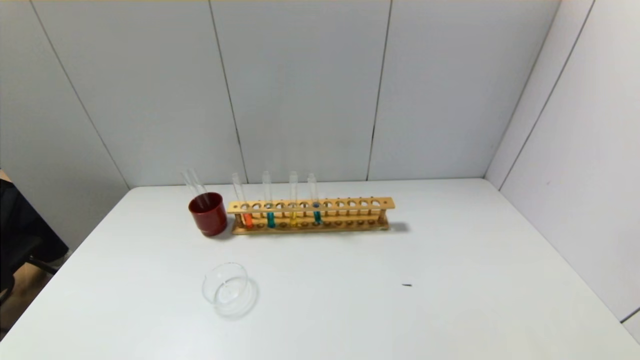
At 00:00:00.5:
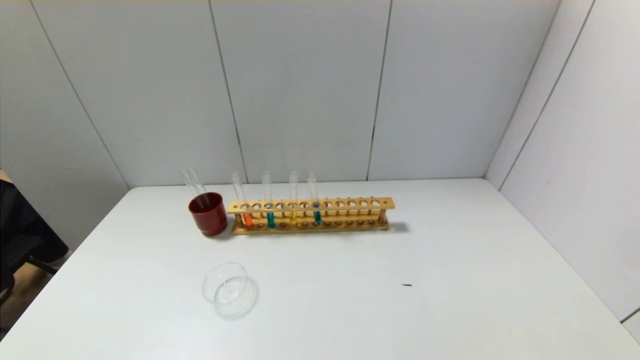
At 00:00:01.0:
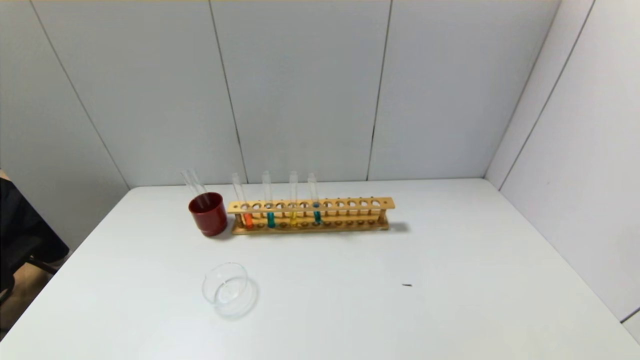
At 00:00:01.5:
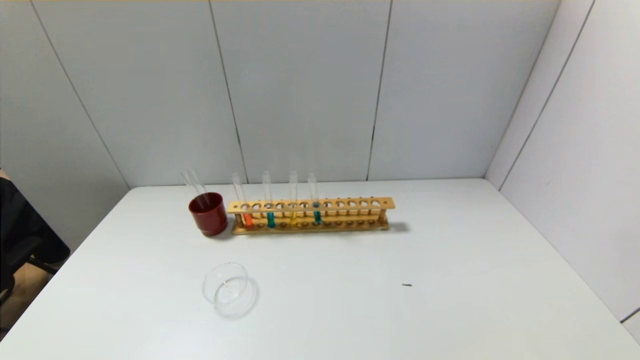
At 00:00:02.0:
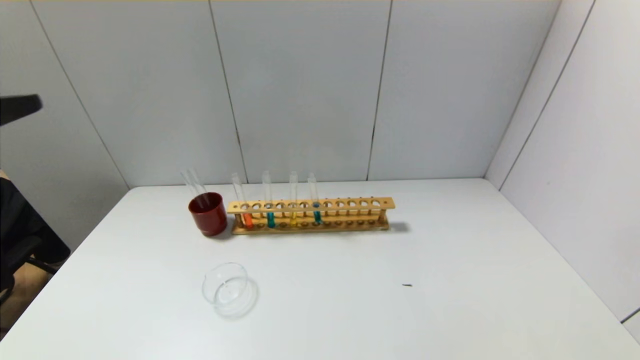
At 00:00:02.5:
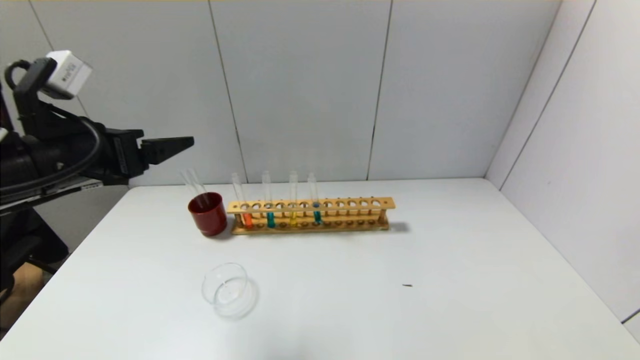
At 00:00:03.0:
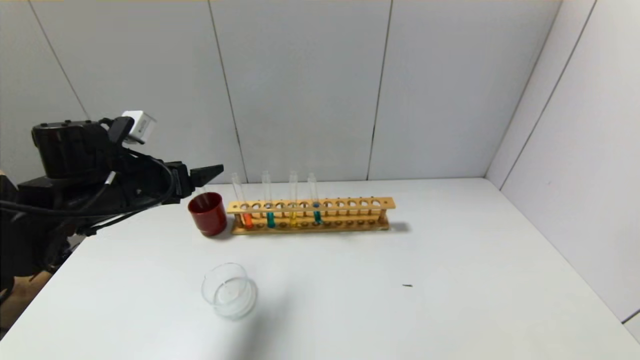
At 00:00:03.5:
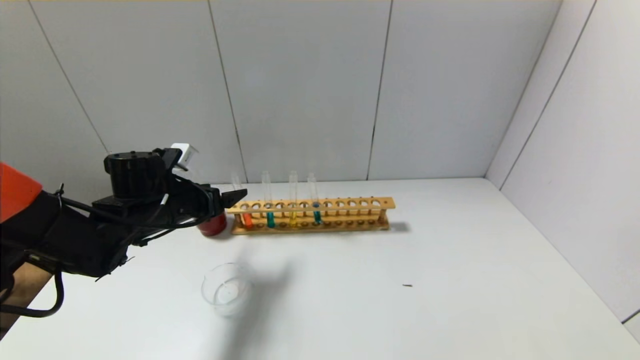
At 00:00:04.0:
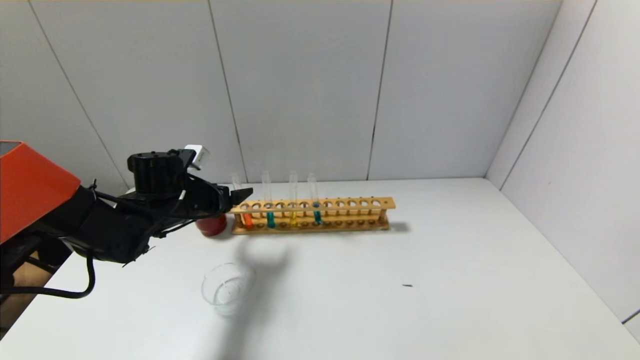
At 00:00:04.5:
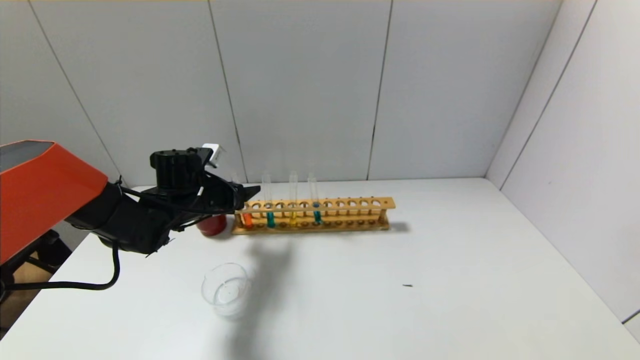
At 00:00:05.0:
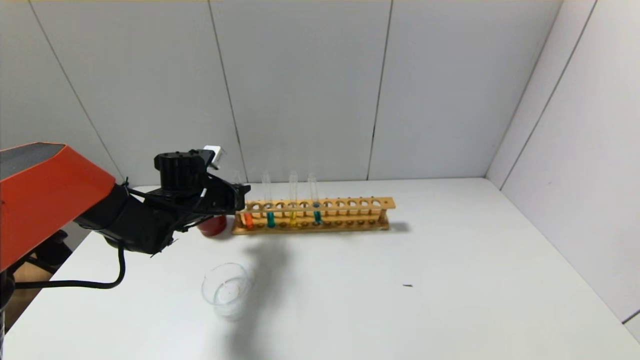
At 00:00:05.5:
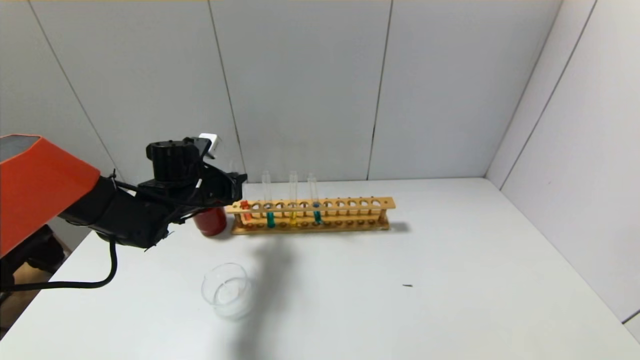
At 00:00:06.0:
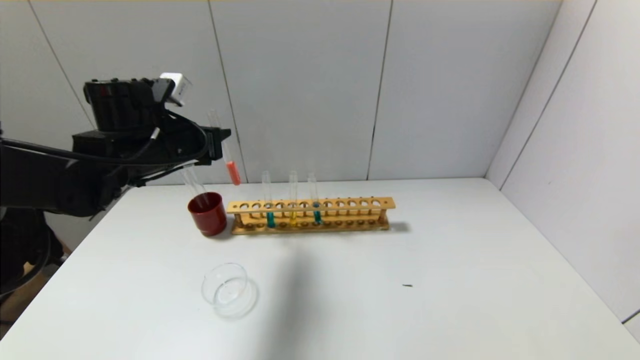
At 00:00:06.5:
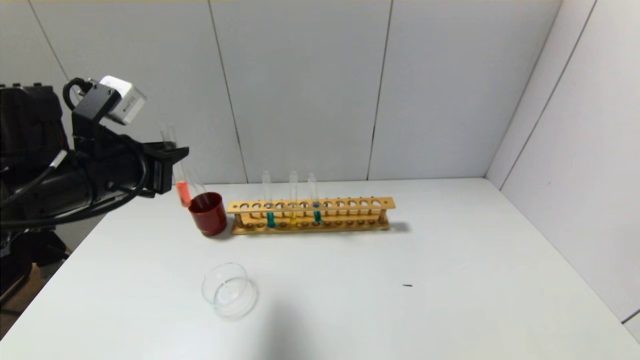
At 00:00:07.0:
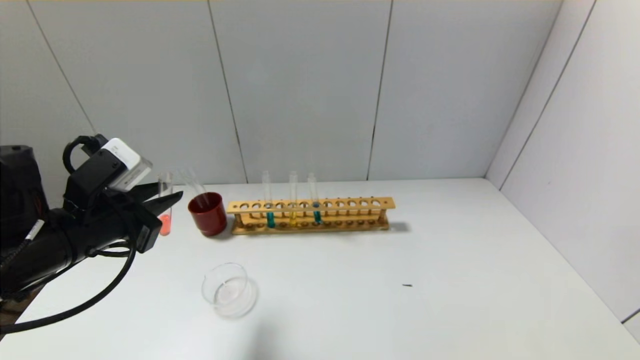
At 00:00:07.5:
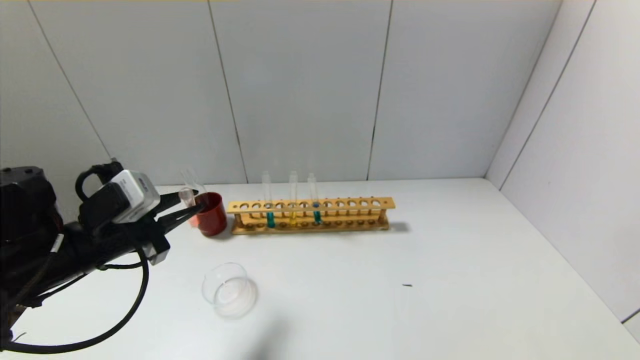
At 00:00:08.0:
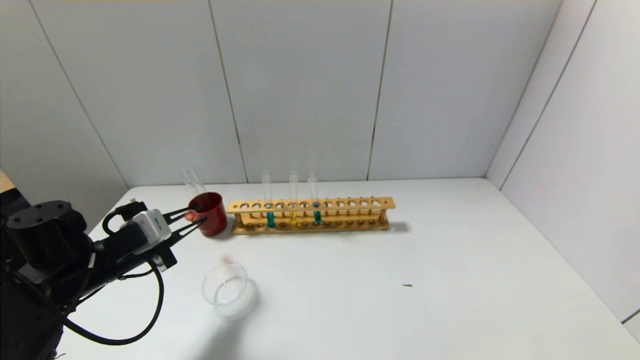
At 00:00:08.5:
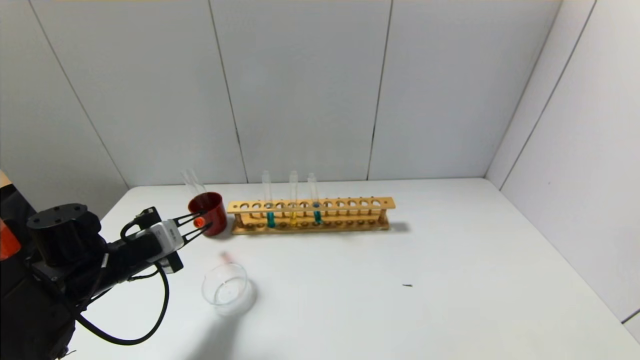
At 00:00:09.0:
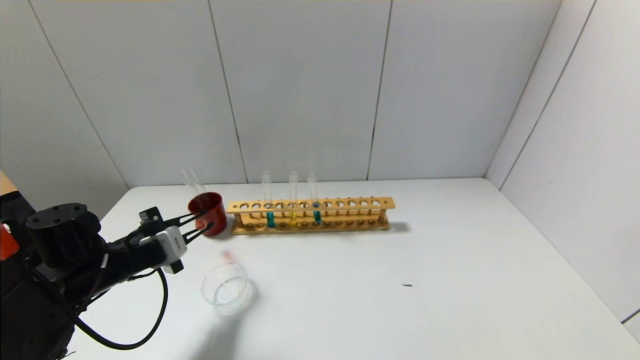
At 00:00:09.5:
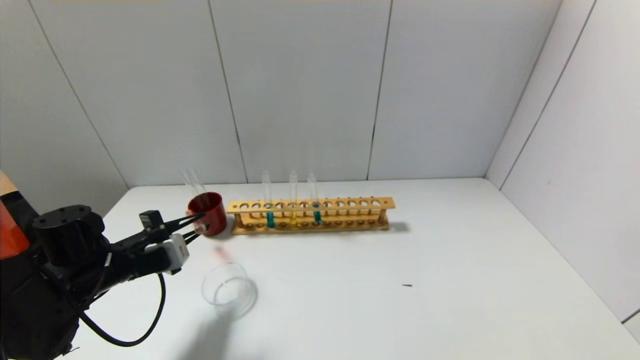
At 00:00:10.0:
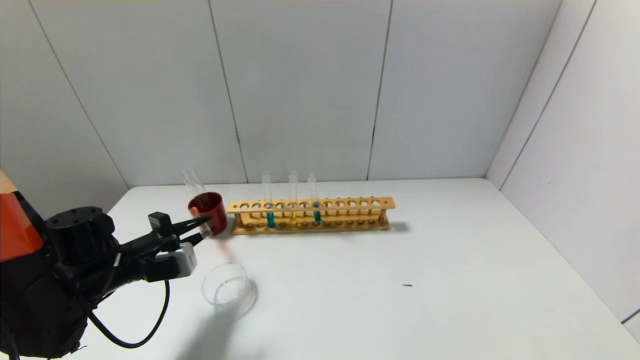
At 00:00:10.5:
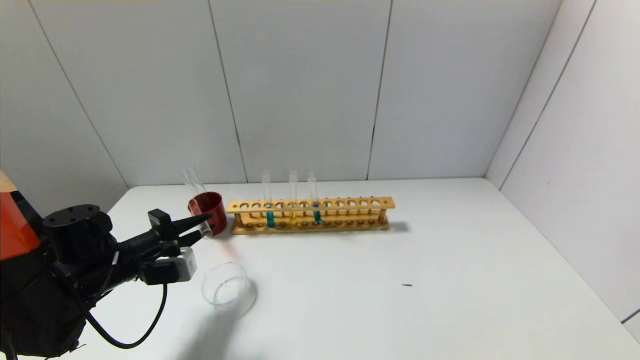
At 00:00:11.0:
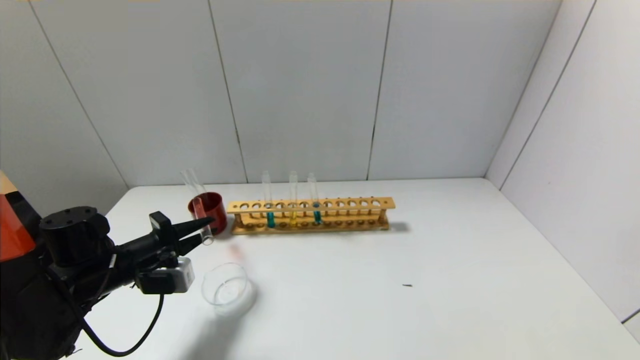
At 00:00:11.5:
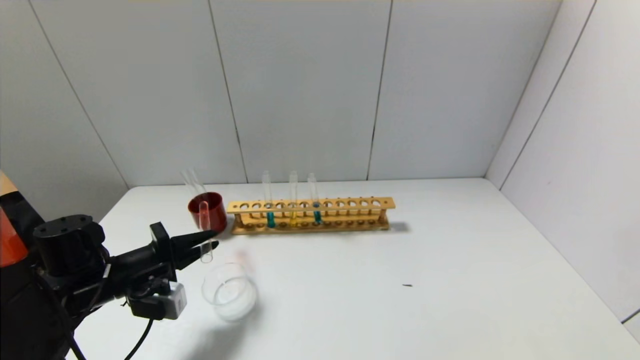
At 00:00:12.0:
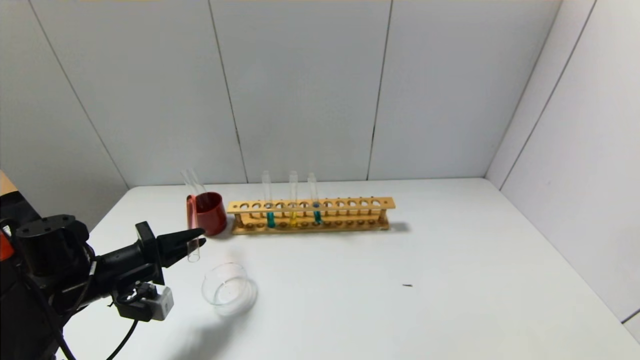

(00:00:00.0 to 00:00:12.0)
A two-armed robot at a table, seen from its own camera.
Step, 00:00:00.0 - 00:00:04.5: Grasp the red reagent with the left gripper.
00:00:00.0 - 00:00:02.0: The left gripper travels upward and forward by about 30 cm.
00:00:02.0 - 00:00:04.0: The left gripper heads forward and downward, covering approximately 35 cm.
00:00:04.0 - 00:00:06.0: The left gripper heads upward, covering some 10 cm, and closes.
00:00:06.0 - 00:00:08.0: The left gripper moves downward, backward and to the left, approximately 15 cm.

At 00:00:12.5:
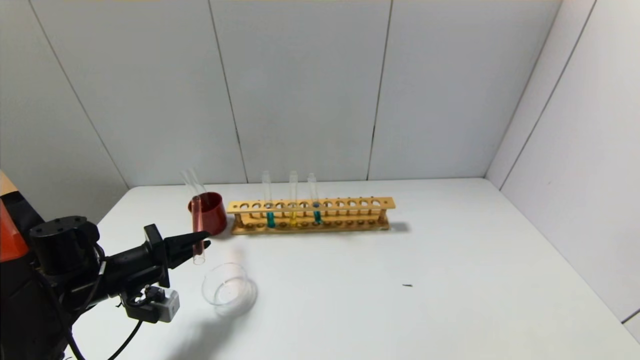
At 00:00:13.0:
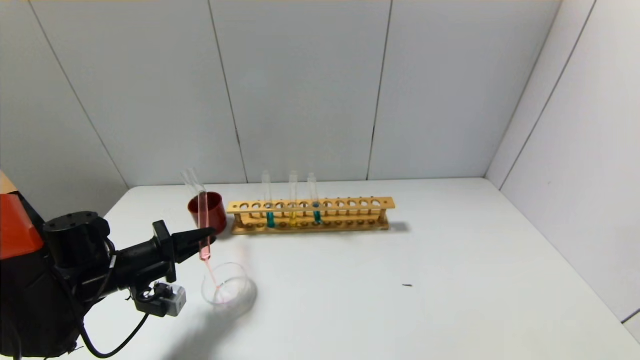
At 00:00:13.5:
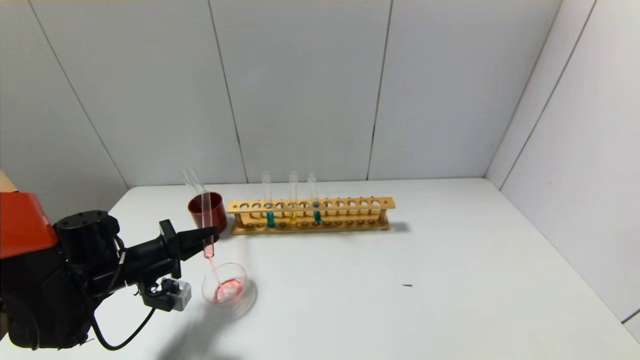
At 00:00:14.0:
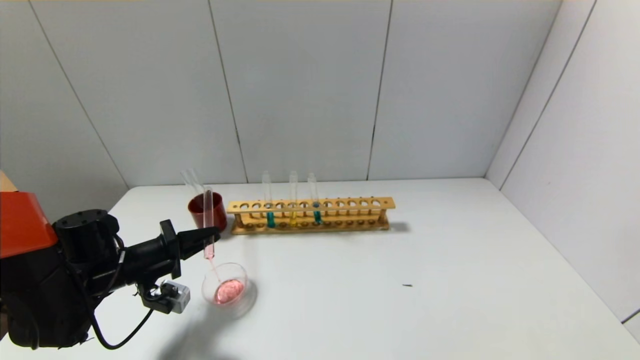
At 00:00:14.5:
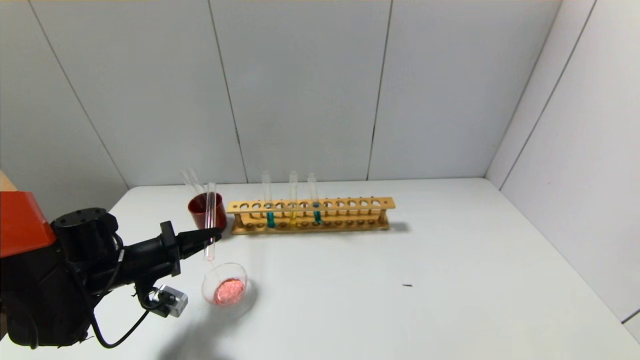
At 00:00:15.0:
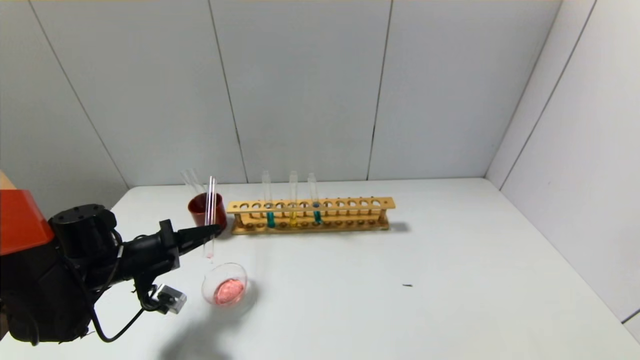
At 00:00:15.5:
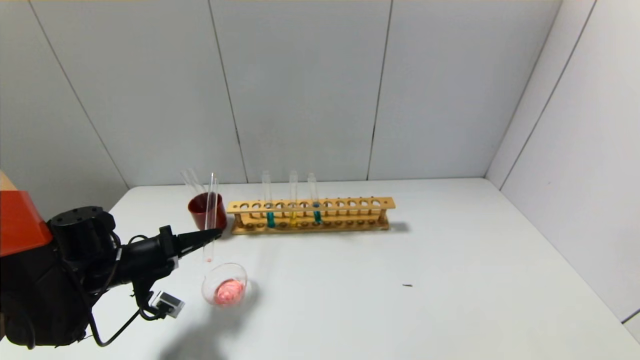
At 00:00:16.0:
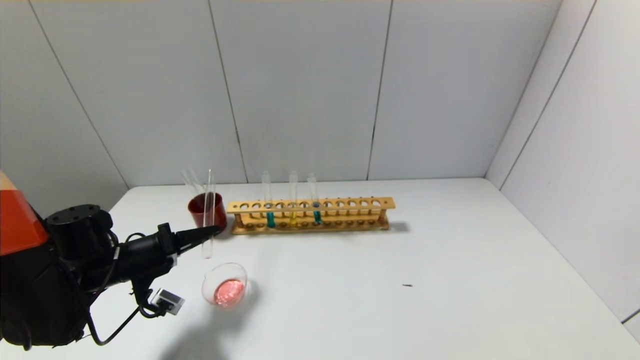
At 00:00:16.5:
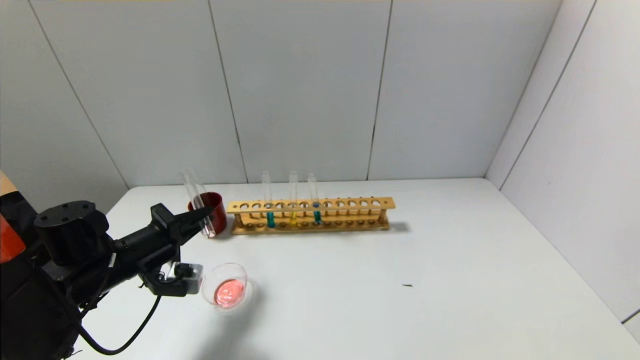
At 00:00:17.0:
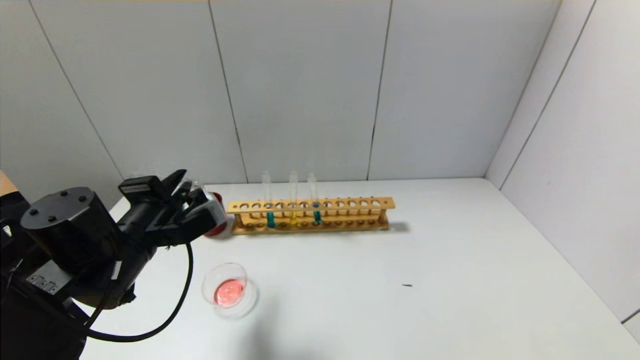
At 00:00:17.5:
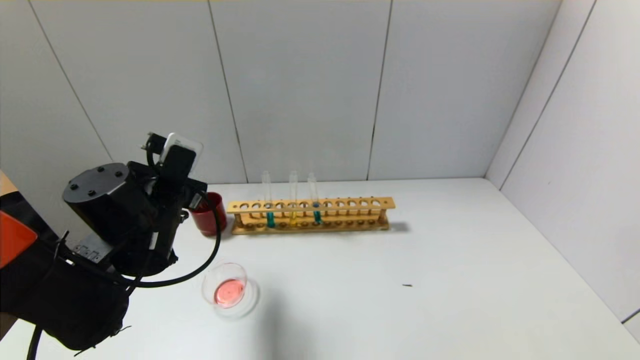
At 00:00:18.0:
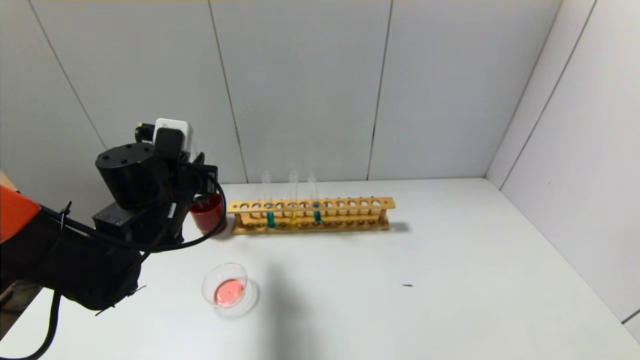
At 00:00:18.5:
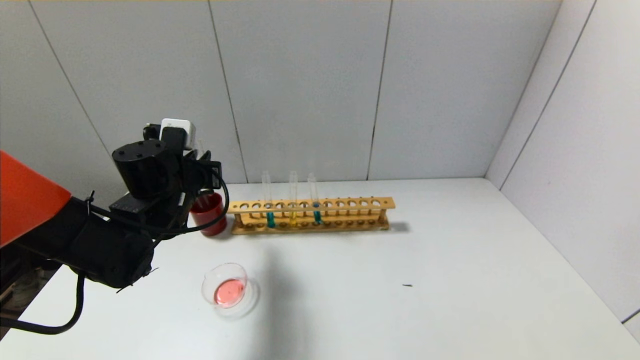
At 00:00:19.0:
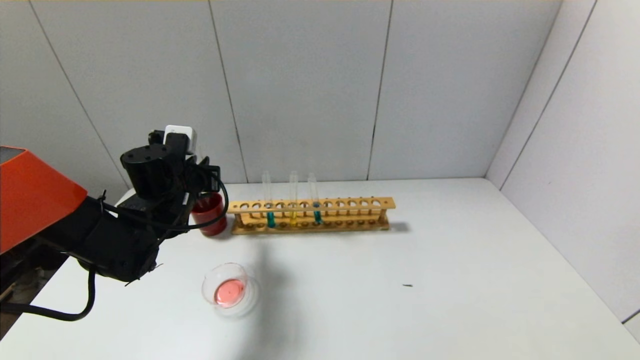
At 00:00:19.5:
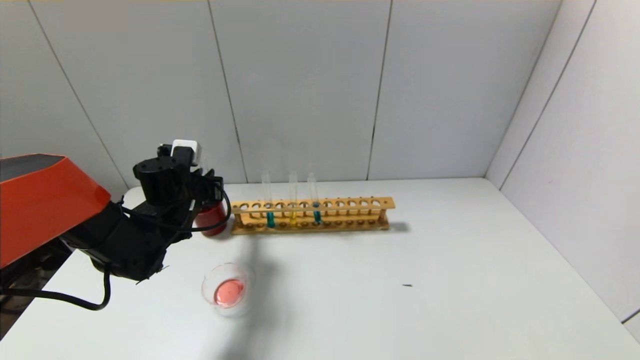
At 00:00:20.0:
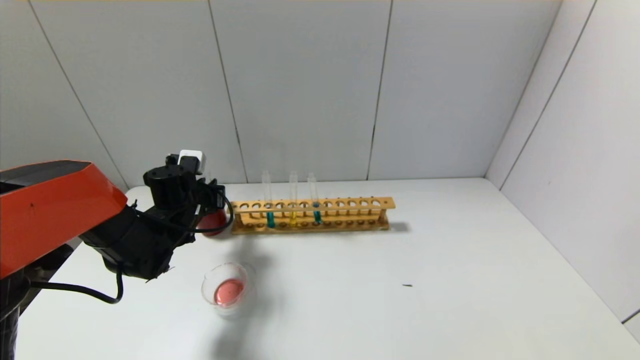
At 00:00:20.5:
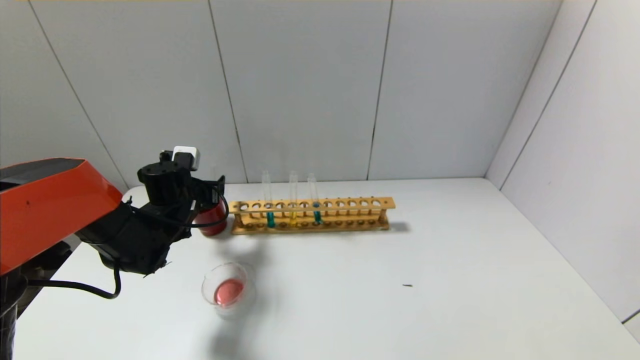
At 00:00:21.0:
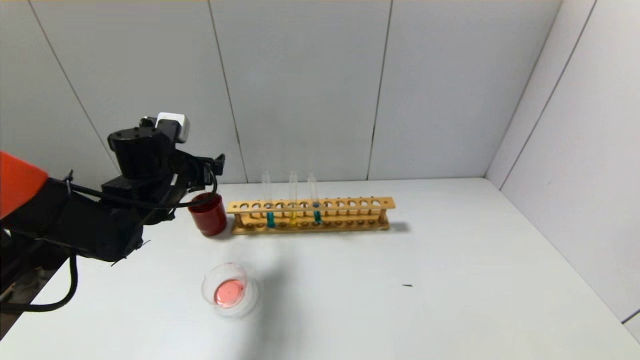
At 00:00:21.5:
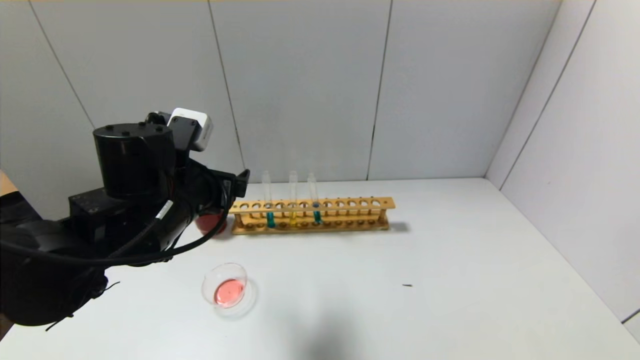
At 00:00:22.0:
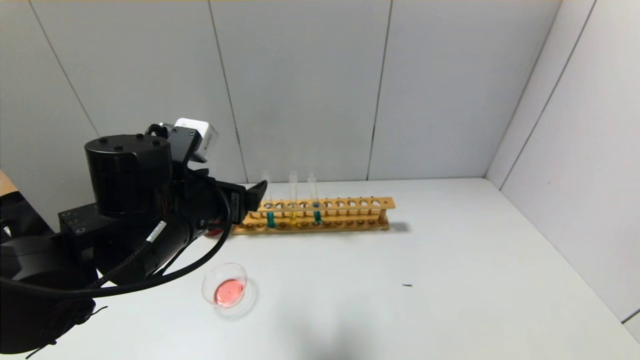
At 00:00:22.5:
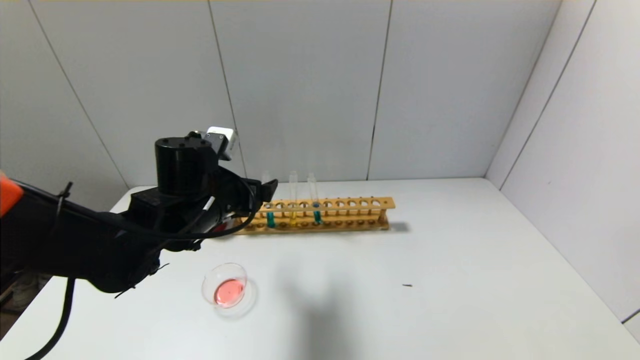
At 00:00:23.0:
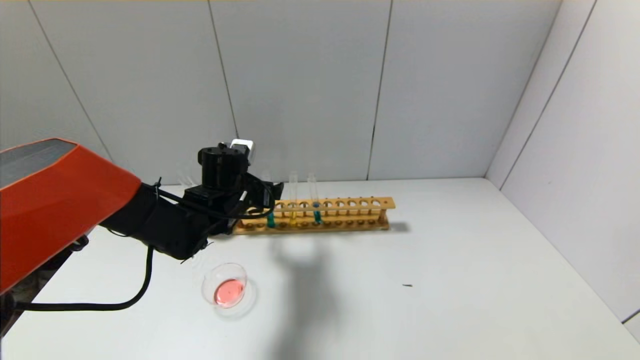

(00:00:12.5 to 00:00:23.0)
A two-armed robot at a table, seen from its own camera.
Step, 00:00:12.5 - 00:00:16.0: Pour the red reagent into the graduated cylinder with the left gripper.
Step, 00:00:16.5 - 00:00:20.0: Place the test tube into the brown cup with the left gripper.
00:00:12.5 - 00:00:14.5: There are only small adjustments of the grippers.
00:00:14.5 - 00:00:16.5: The left gripper changes place by roughly 5 cm.
00:00:16.5 - 00:00:19.0: The left gripper moves forward and to the right, some 10 cm.
00:00:19.0 - 00:00:21.0: The left gripper opens its fingers.
00:00:21.0 - 00:00:23.0: The left gripper is displaced to the right and downward by roughly 10 cm, and goes backward and returns, roughly 10 cm each way.
